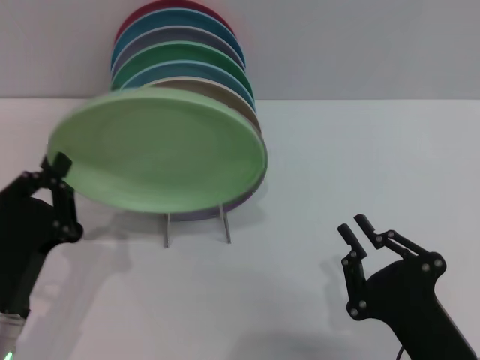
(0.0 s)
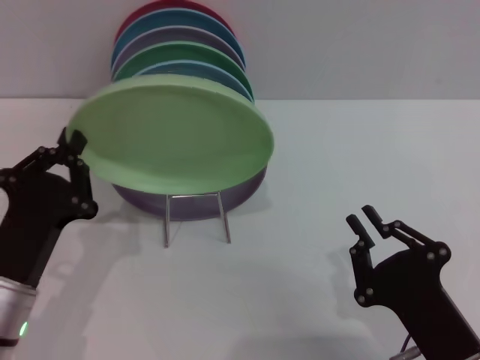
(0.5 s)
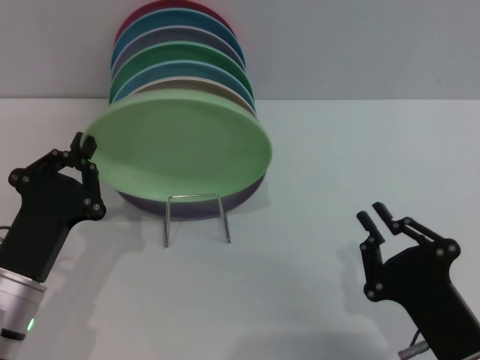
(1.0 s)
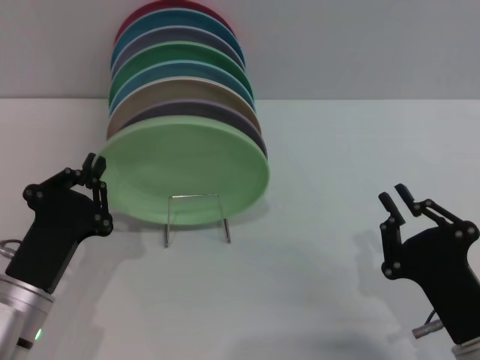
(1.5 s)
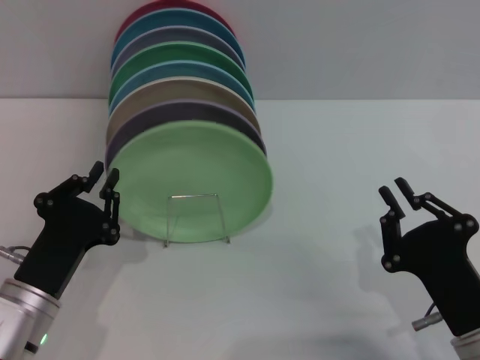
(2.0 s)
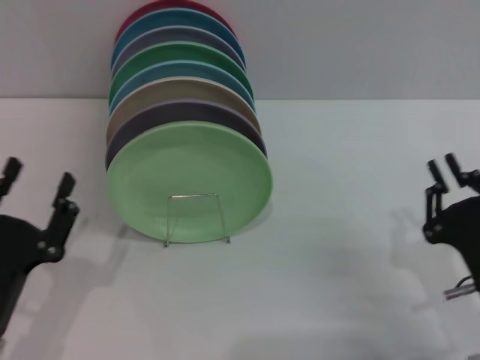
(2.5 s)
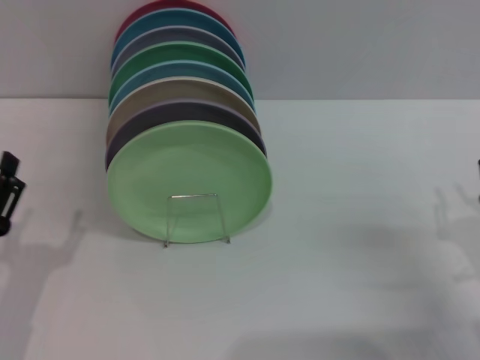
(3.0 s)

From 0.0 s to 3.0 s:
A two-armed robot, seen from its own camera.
Task of the whole recording: Grip the plate with one hand, pass it to the other, then set it on the shelf.
Step, from 0.0 s to 2.0 s: Place the plate on the shelf with the left gripper.
From 1.5 s to 3.0 s: The right gripper travels to the right and forward by roughly 10 cm; the left gripper shifts about 5 cm to the left, and opens its fingers.
